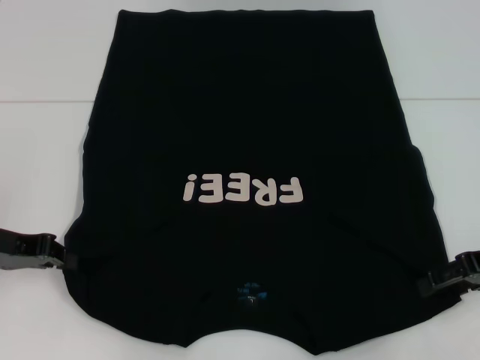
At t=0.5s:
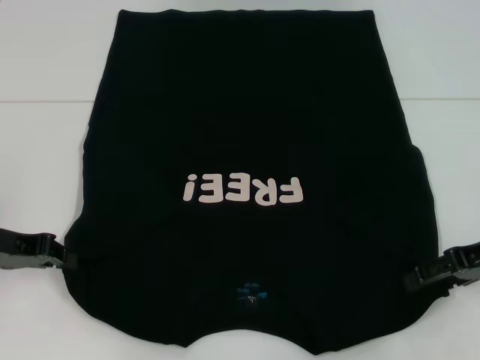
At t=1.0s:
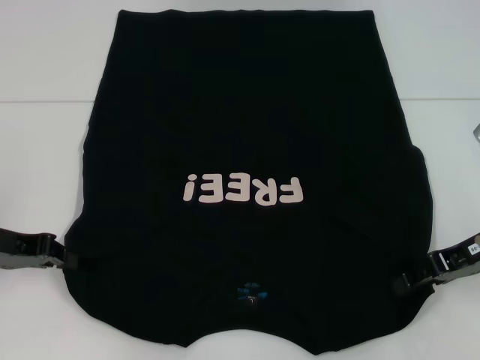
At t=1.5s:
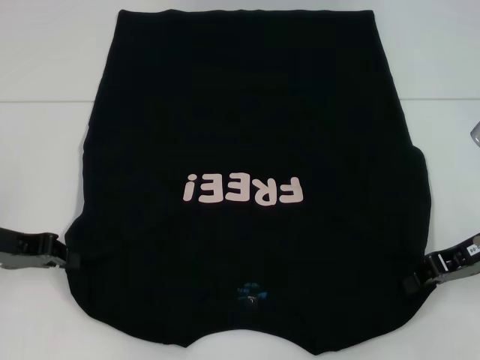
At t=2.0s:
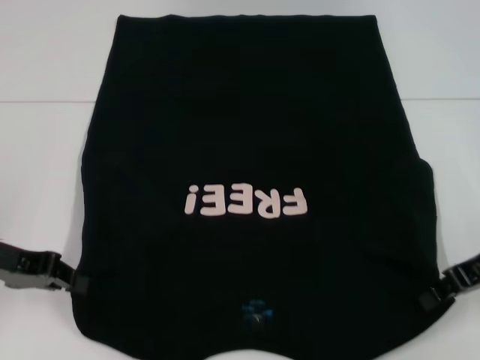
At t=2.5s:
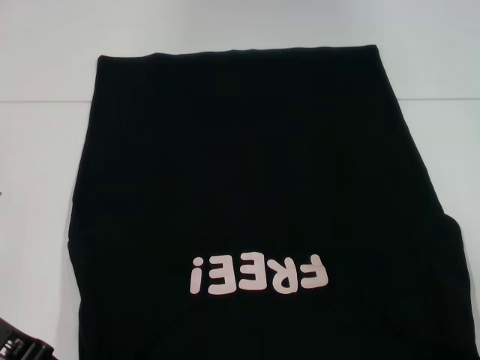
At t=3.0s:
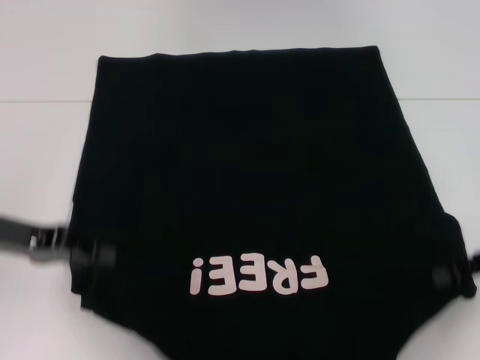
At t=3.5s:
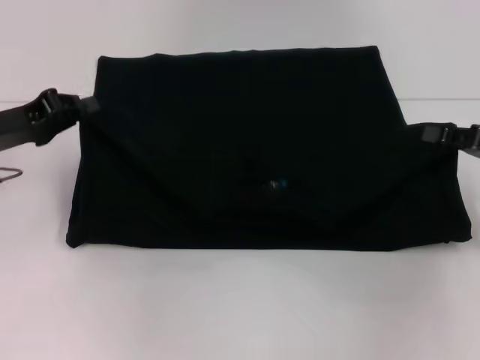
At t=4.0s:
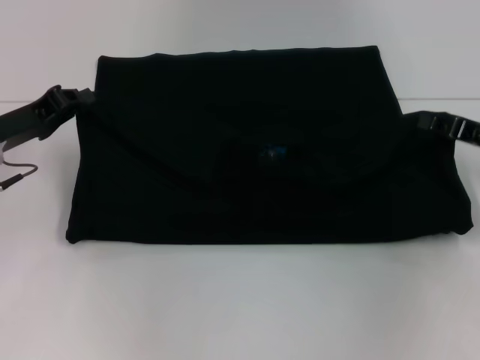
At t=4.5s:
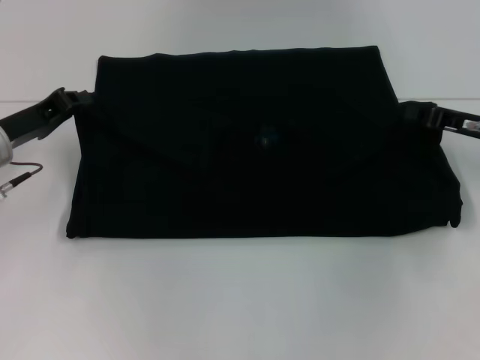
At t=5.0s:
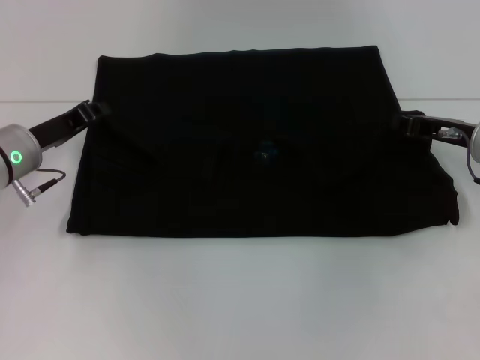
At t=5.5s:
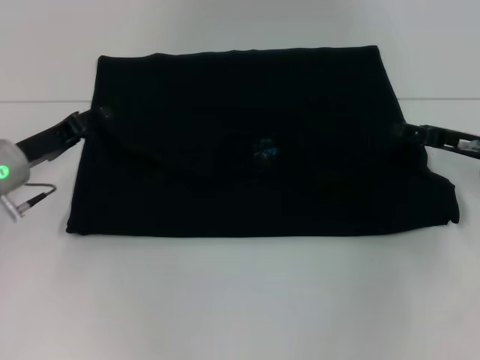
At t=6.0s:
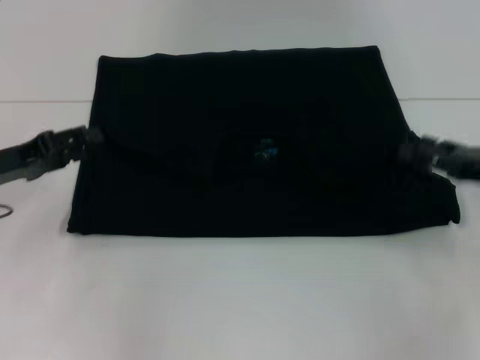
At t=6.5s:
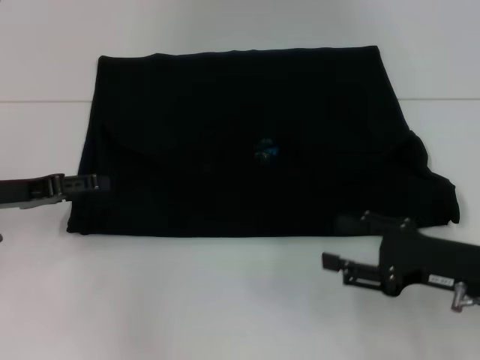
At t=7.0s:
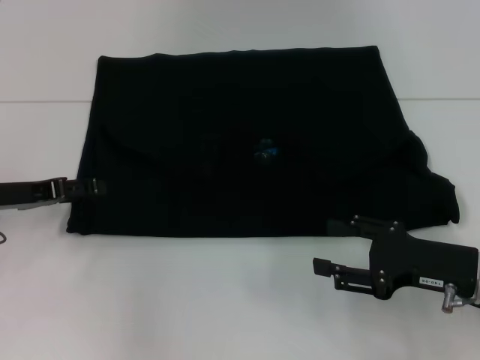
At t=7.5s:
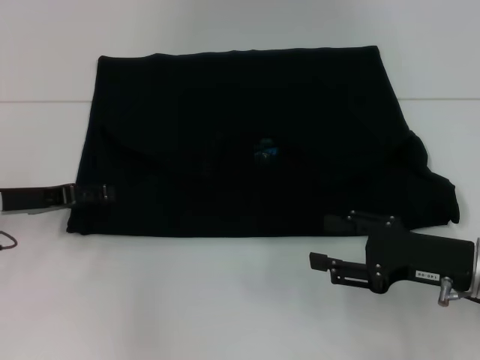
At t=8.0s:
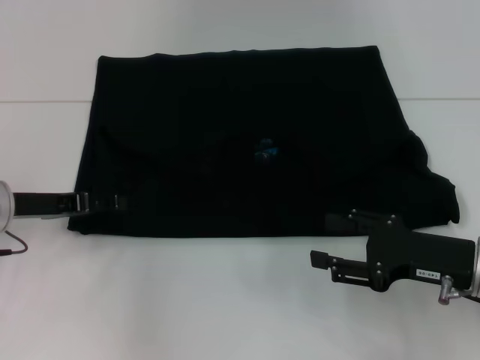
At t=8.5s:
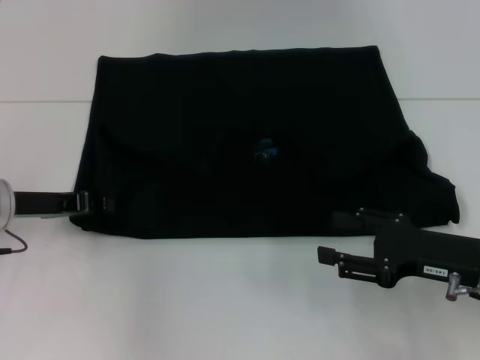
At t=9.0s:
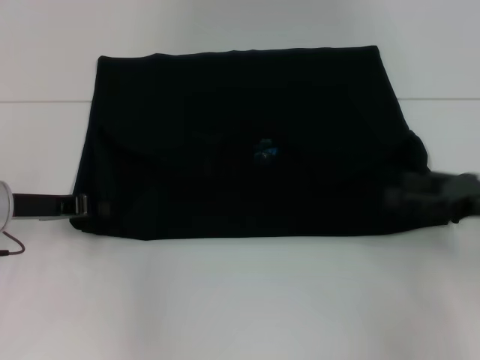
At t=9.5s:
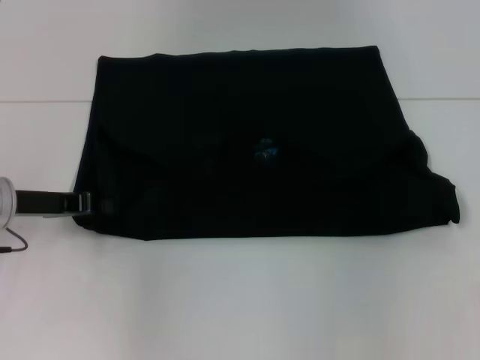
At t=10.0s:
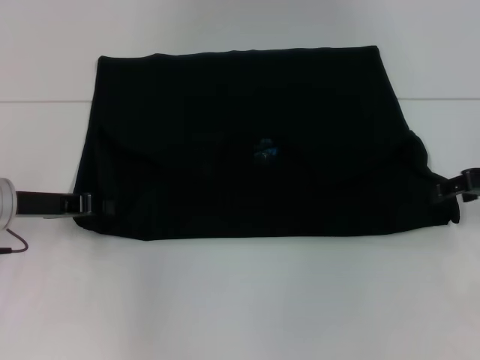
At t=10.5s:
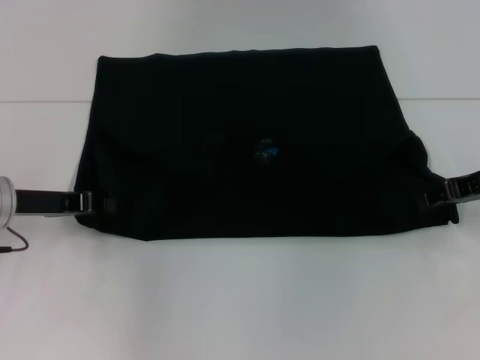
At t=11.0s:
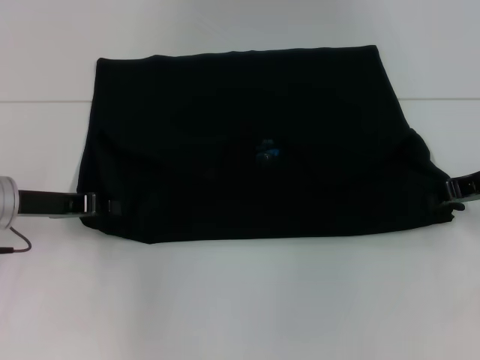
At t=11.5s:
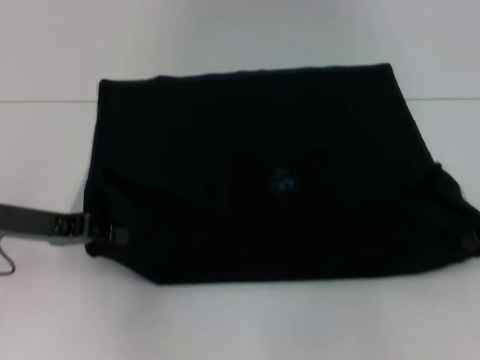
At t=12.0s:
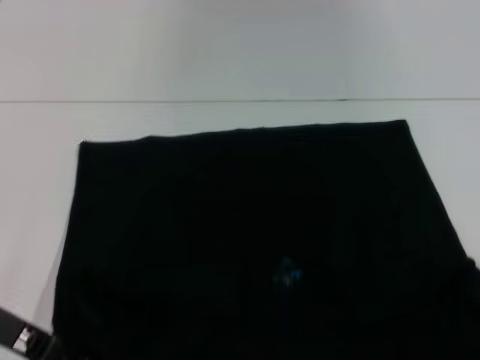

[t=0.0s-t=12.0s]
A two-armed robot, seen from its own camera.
Step, t=1.0s to t=6.0s: Fold the clothes with your left hand.
Step, t=1.0s to t=6.0s: Fold the clothes with your right hand.
t=0.0s to t=2.0s: The right gripper closes.
t=2.0s to t=4.0s: The left gripper moves forward, approximately 5 cm.
t=4.0s to t=6.0s: The right gripper opens up. The left gripper opens.
t=6.0s to t=8.0s: The right gripper goes approximately 5 cm to the left.
t=8.0s to t=10.0s: The left gripper closes up. Meanwhile the right gripper shifts roughly 15 cm forward, upward and to the right.
t=10.0s to t=12.0s: The grippers both shift backward by some 10 cm. The right gripper closes up.

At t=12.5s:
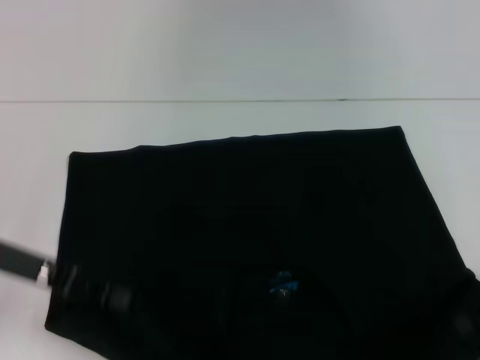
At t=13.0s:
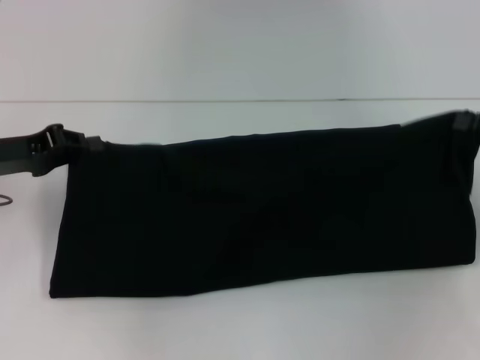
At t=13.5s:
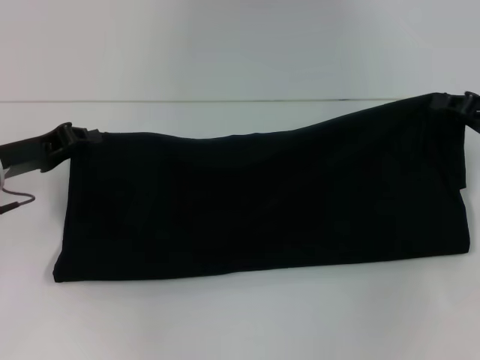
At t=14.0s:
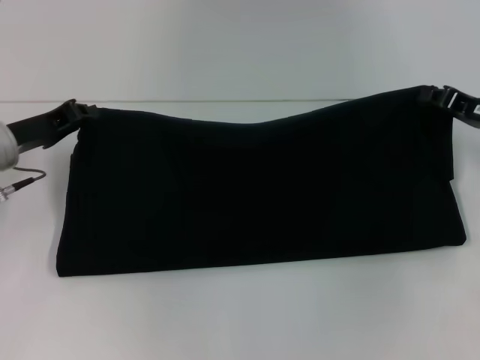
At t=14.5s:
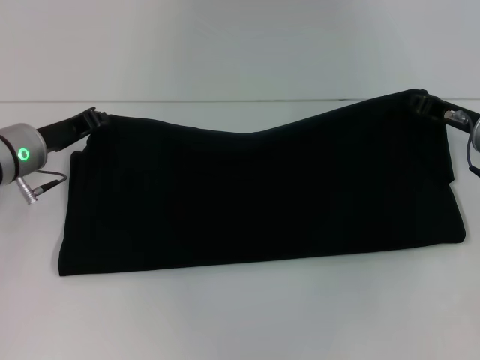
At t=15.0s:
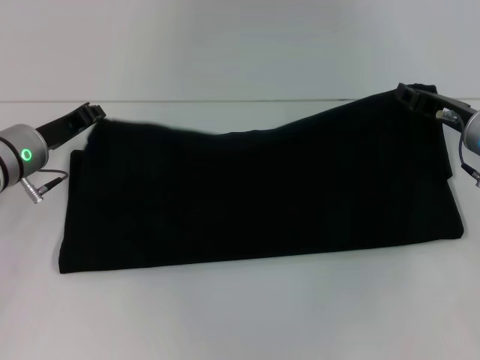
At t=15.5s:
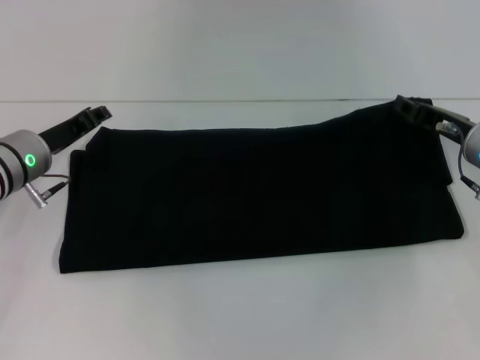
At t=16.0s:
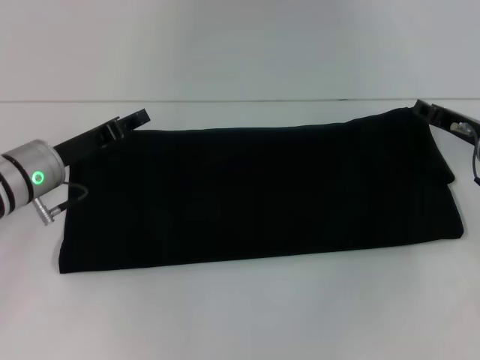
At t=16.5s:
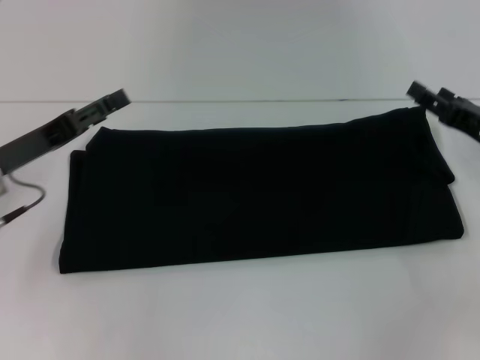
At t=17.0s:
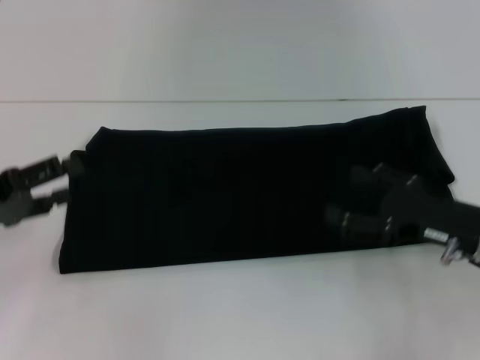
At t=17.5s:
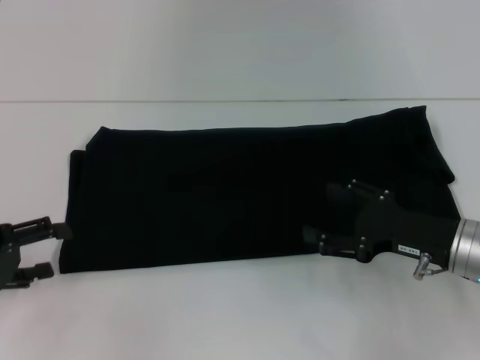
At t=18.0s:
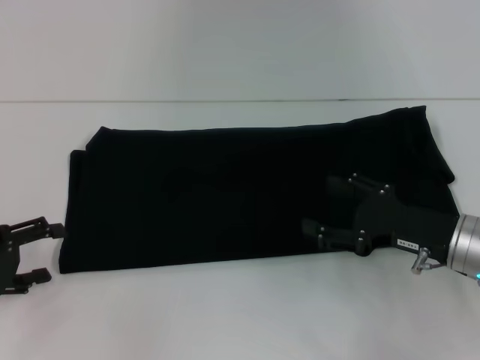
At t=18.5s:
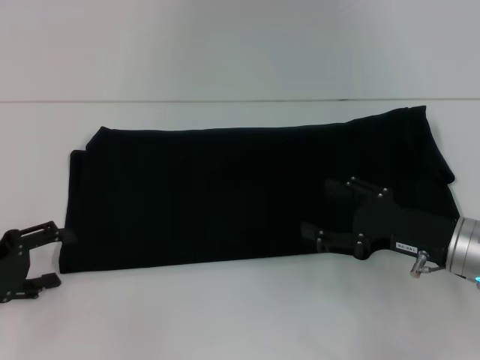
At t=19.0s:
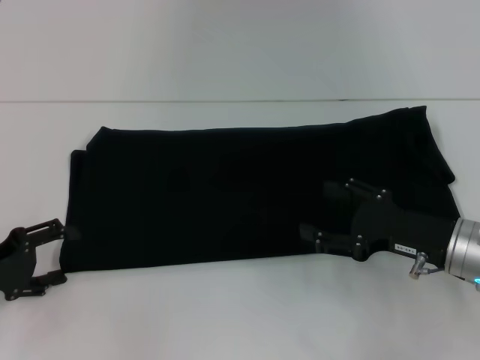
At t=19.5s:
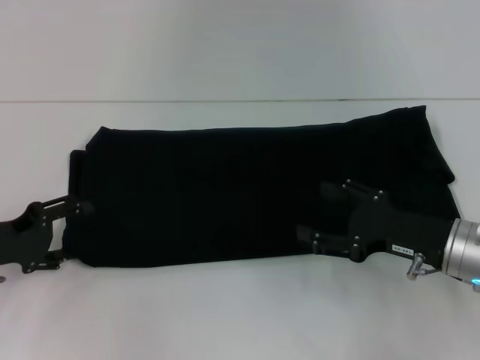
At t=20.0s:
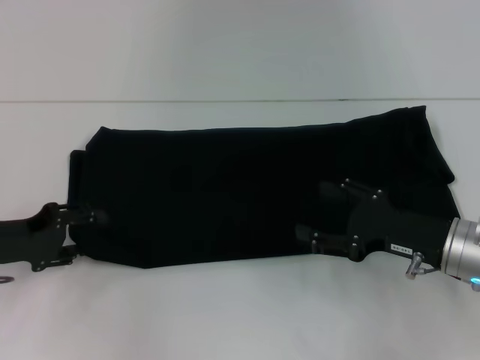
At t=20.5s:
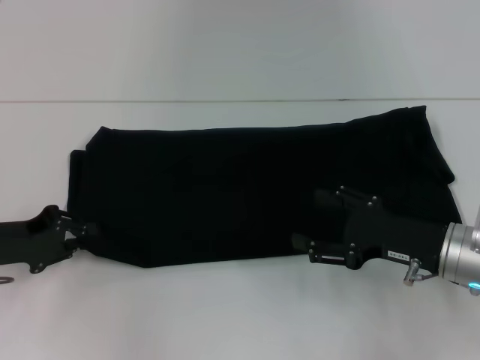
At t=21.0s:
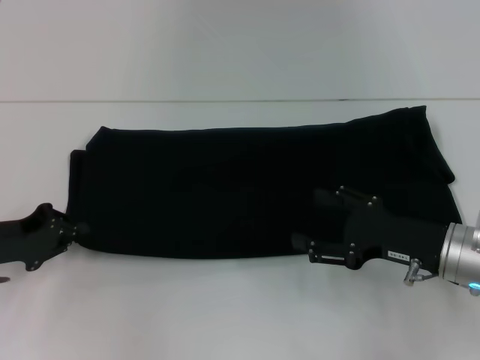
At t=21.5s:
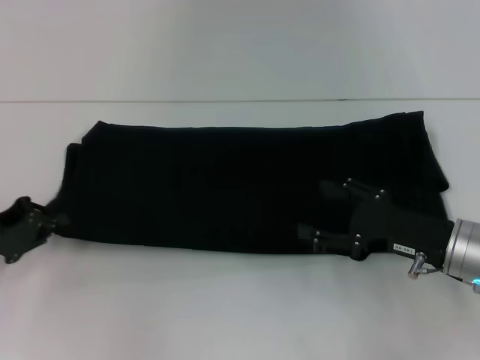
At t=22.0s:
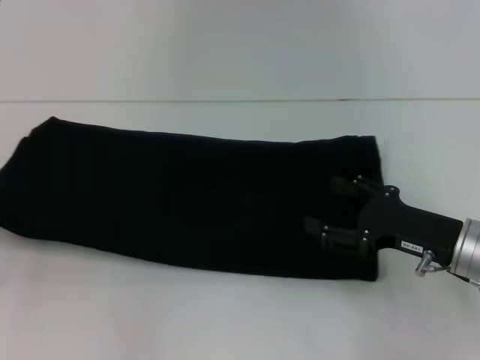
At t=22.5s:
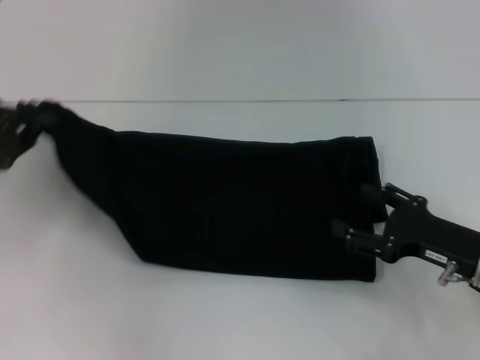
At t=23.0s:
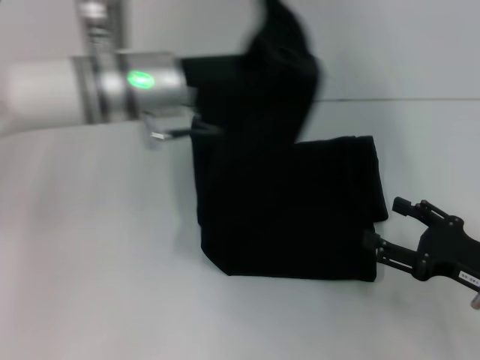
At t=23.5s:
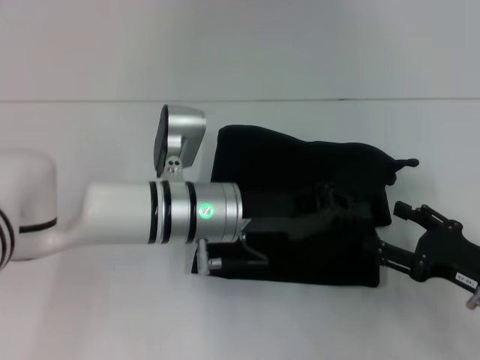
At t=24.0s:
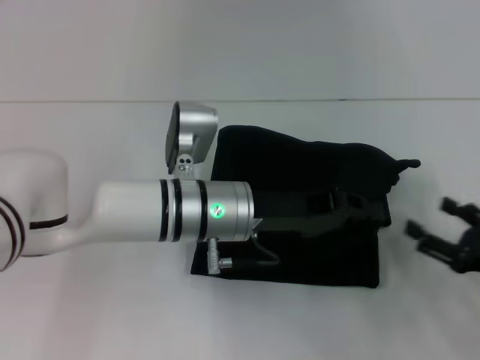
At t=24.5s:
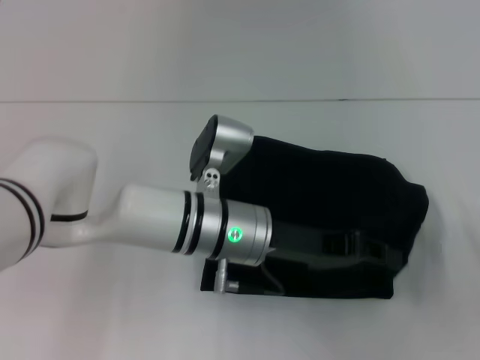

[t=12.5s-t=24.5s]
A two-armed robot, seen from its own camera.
Step, t=12.5s to t=16.0s: Fold the clothes with your right hand.
t=12.5s to t=14.5s: The right gripper heads forward and to the left, covering approximately 15 cm. Meanwhile the left gripper travels forward by some 10 cm.
t=14.5s to t=16.5s: The grippers both shift backward by about 5 cm. The left gripper opens its fingers, while the right gripper opens up.
t=16.5s to t=18.5s: The right gripper moves to the left and backward, about 10 cm; the left gripper travels backward and to the left by roughly 10 cm.
t=18.5s to t=20.5s: The left gripper shifts by some 5 cm, and closes its fingers.
t=20.5s to t=22.5s: The left gripper moves upward, roughly 5 cm, and moves roughly 10 cm to the left and comes back.
t=22.5s to t=24.5s: The right gripper travels to the right and backward by some 10 cm. The left gripper travels to the right by approximately 30 cm.

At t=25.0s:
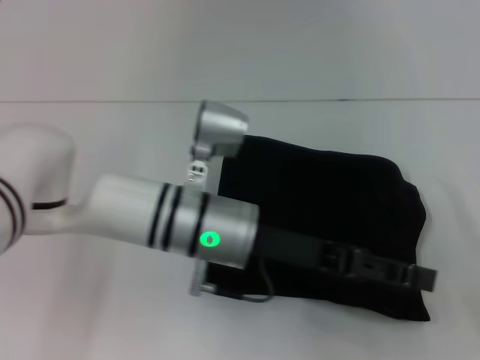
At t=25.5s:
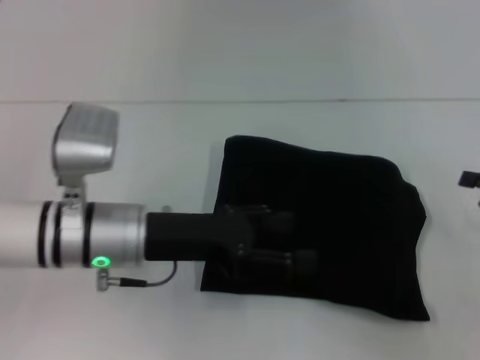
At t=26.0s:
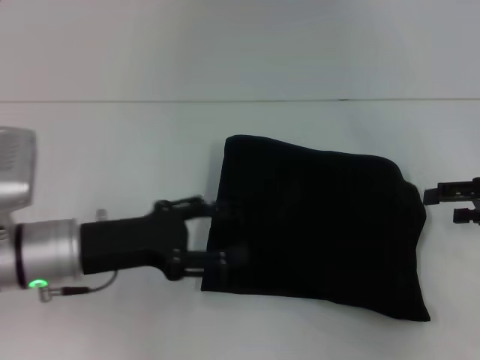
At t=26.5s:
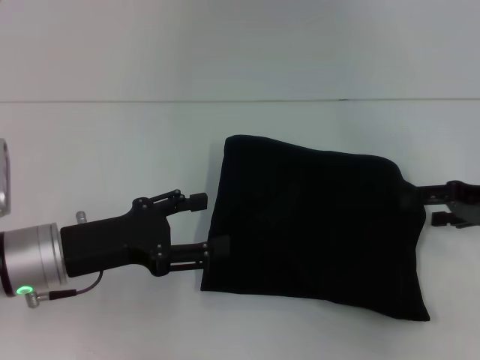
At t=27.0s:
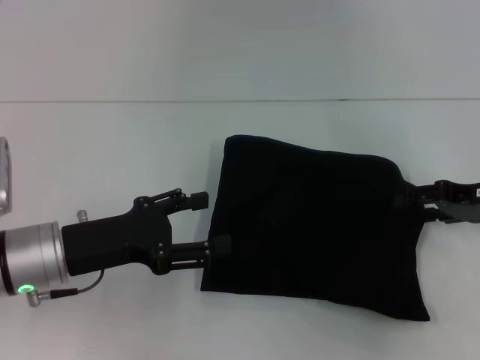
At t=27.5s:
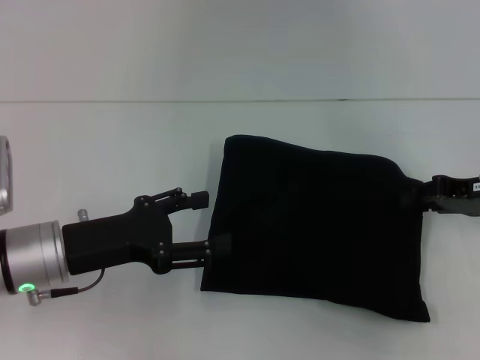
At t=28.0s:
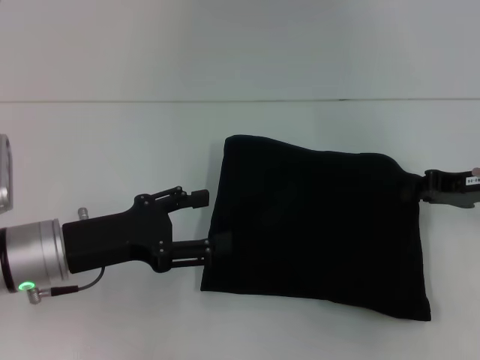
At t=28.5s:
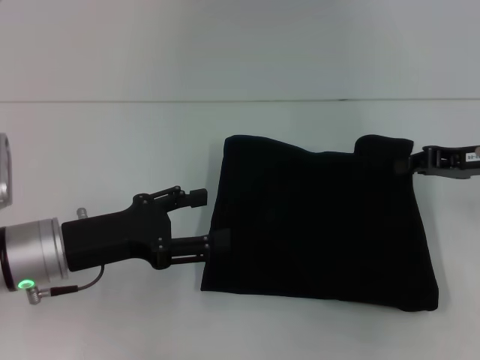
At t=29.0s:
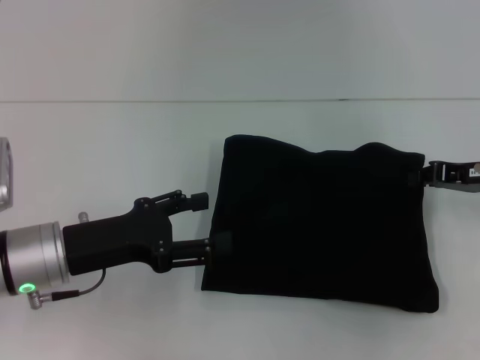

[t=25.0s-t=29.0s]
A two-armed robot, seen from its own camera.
t=25.0s to t=27.0s: The left gripper travels to the left by about 15 cm. Meanwhile the right gripper shifts about 15 cm forward and upward.
t=27.0s to t=29.0s: The right gripper closes.
